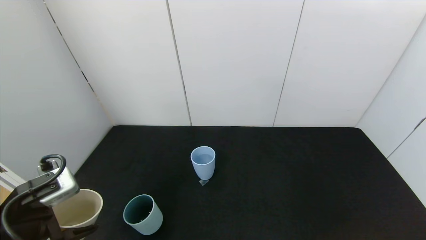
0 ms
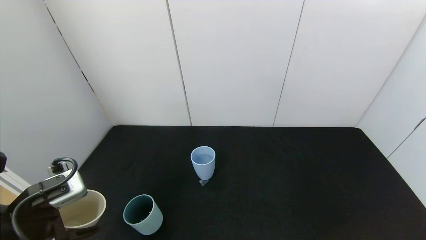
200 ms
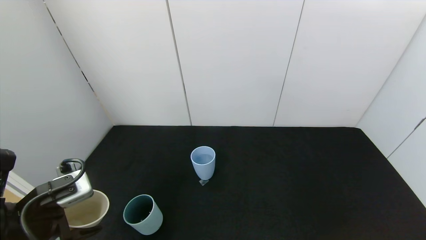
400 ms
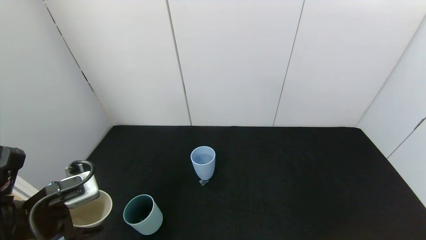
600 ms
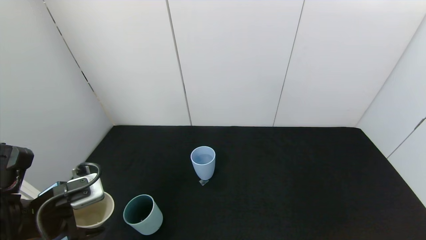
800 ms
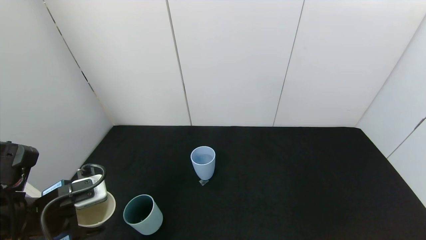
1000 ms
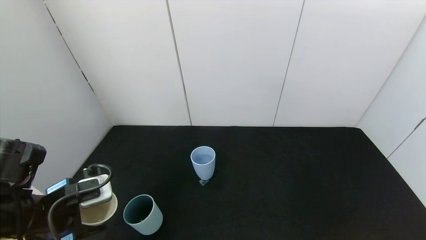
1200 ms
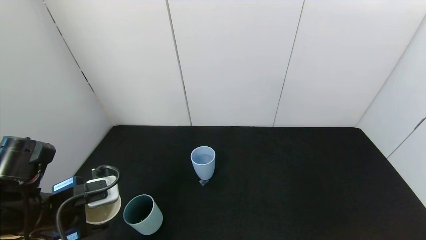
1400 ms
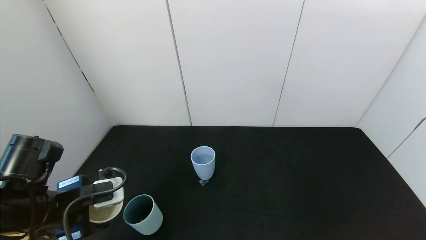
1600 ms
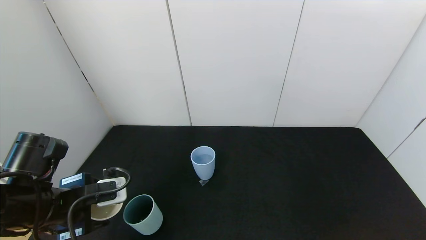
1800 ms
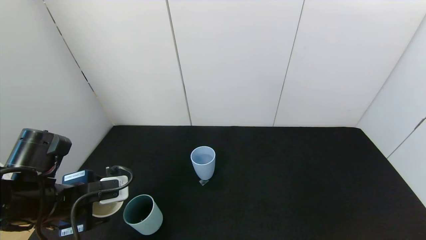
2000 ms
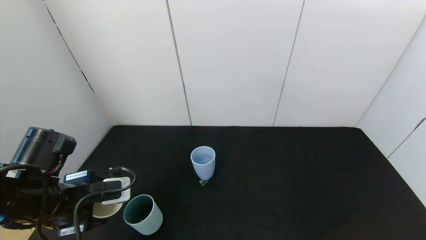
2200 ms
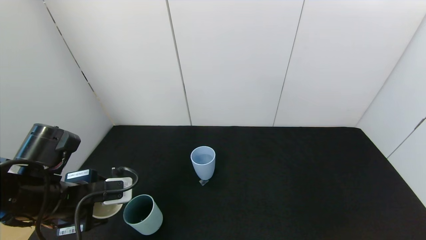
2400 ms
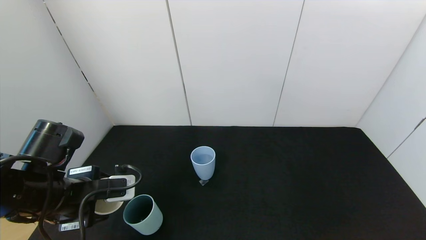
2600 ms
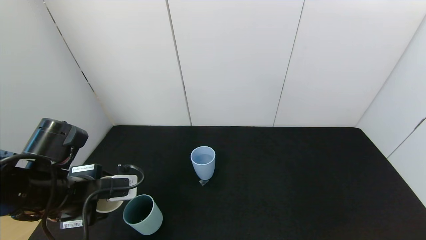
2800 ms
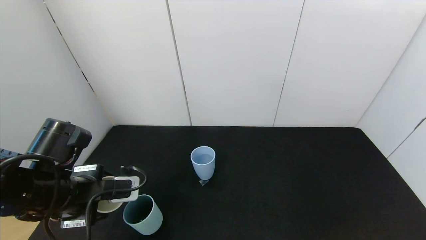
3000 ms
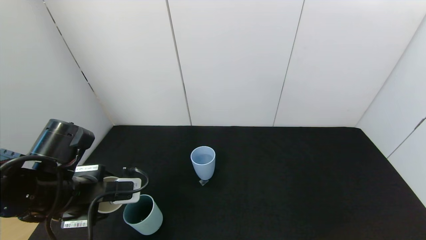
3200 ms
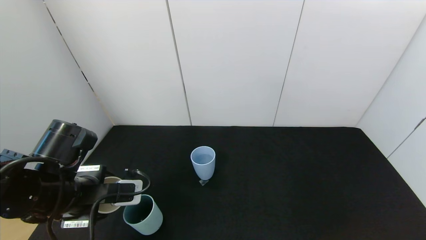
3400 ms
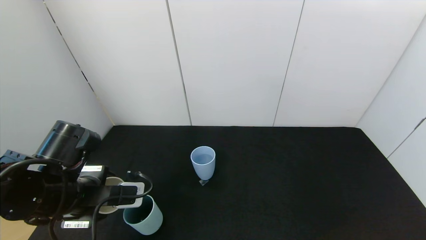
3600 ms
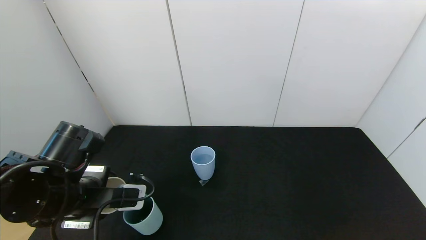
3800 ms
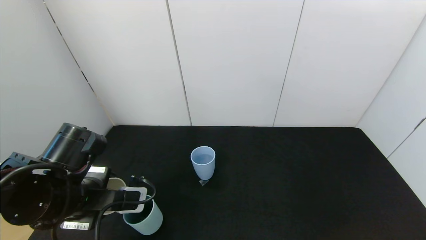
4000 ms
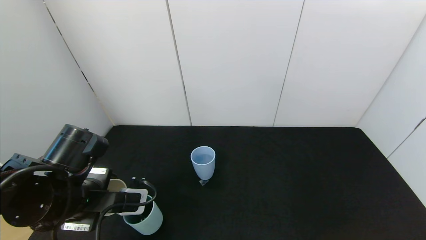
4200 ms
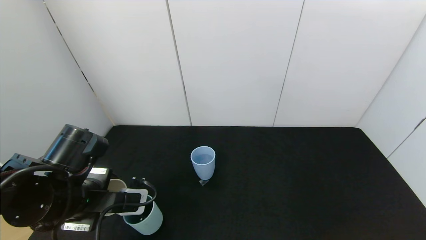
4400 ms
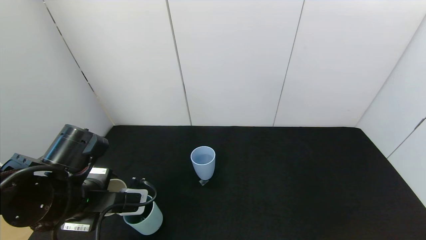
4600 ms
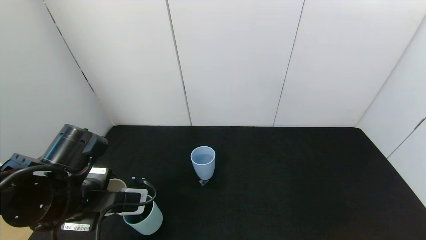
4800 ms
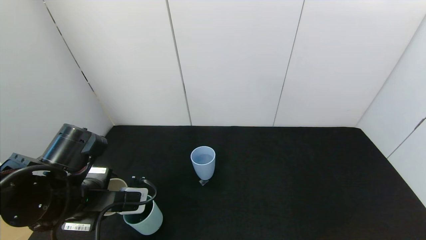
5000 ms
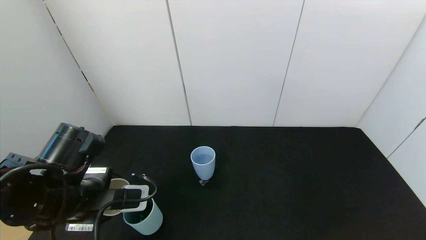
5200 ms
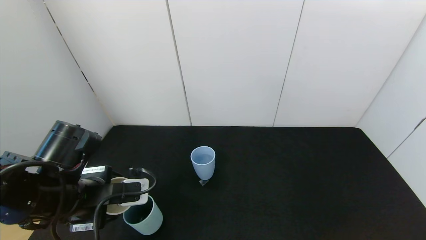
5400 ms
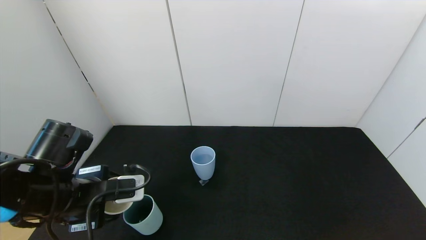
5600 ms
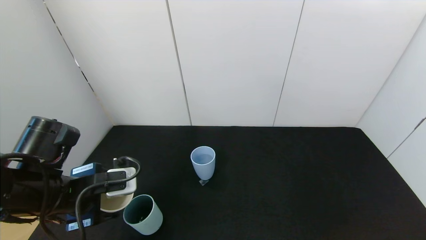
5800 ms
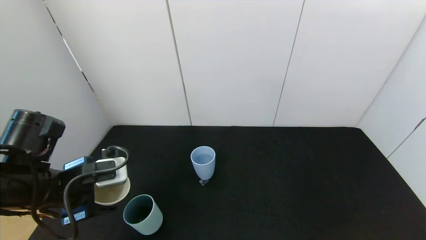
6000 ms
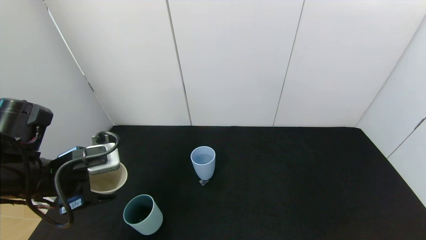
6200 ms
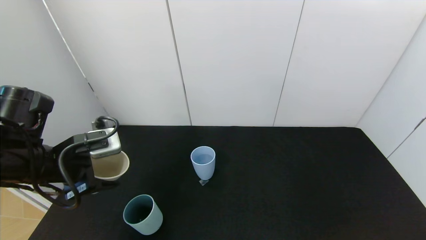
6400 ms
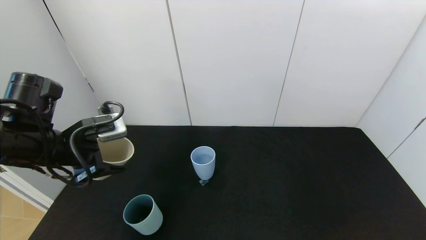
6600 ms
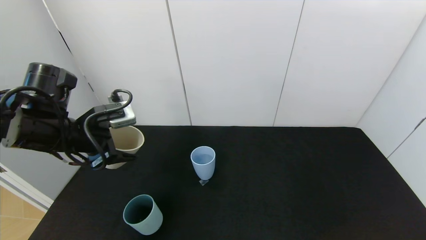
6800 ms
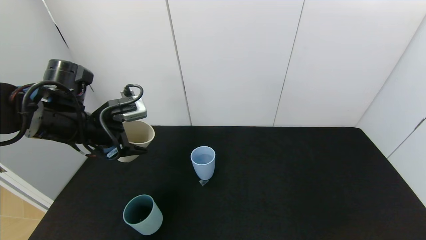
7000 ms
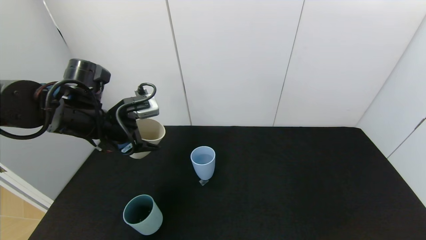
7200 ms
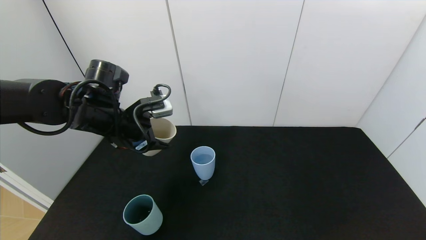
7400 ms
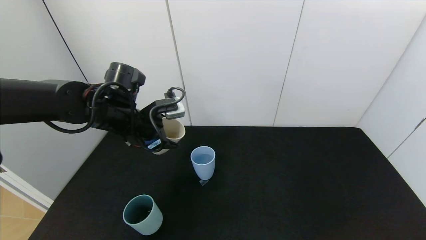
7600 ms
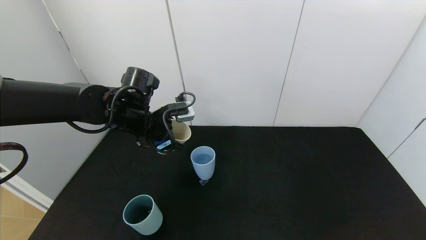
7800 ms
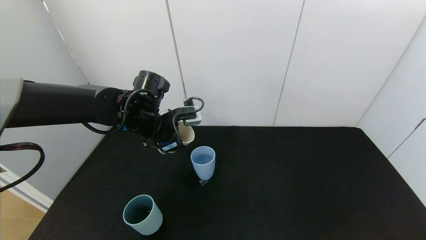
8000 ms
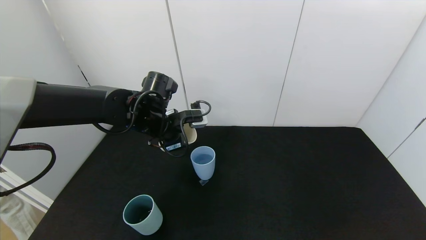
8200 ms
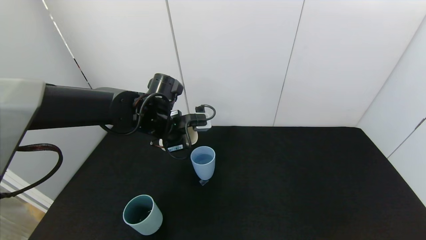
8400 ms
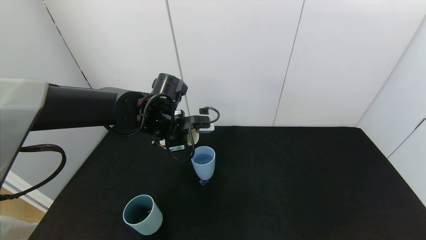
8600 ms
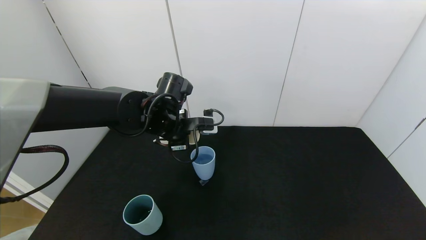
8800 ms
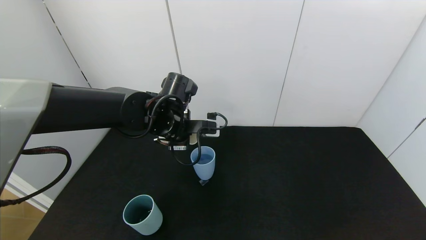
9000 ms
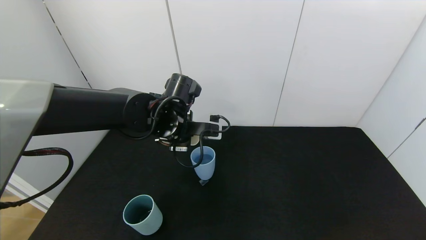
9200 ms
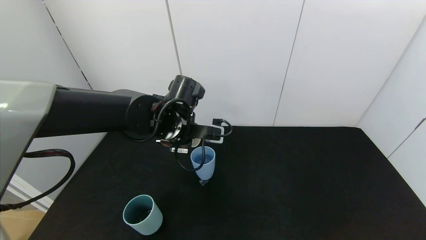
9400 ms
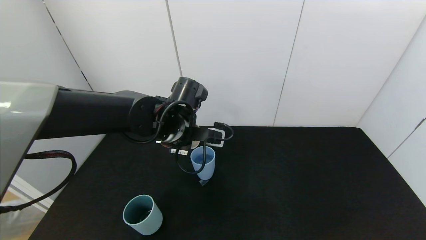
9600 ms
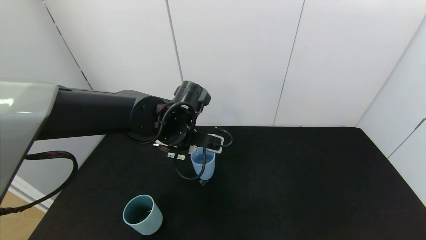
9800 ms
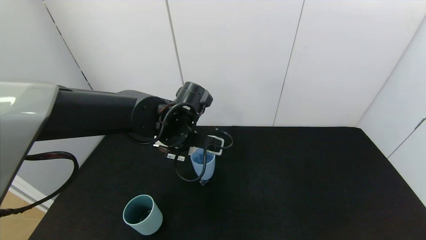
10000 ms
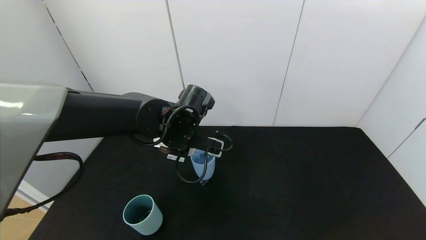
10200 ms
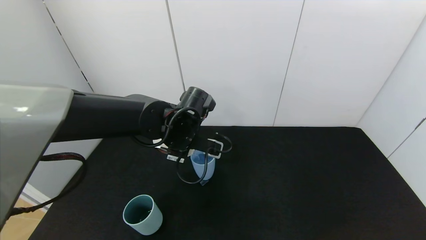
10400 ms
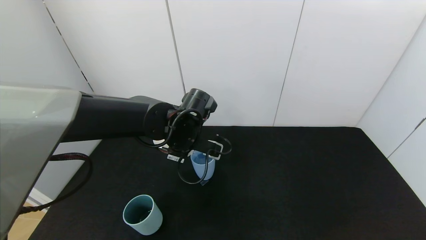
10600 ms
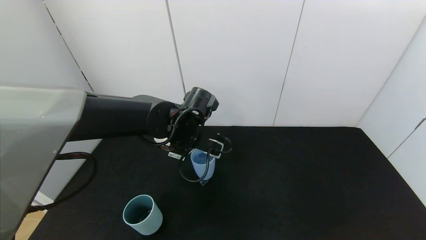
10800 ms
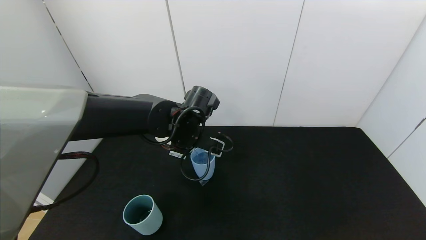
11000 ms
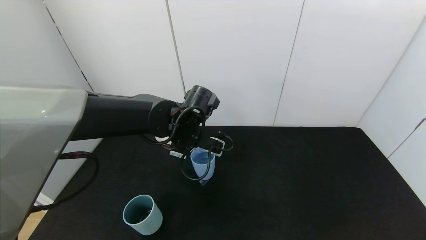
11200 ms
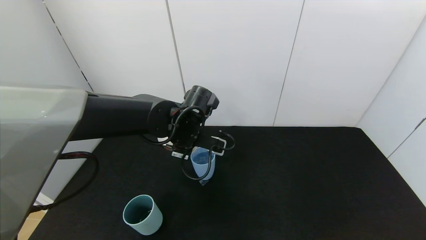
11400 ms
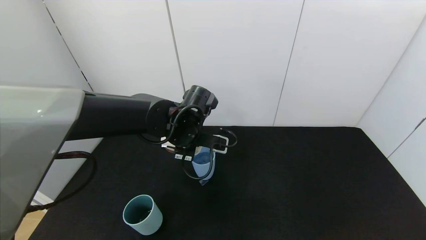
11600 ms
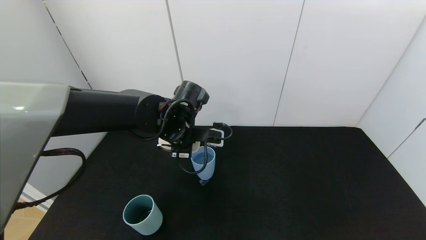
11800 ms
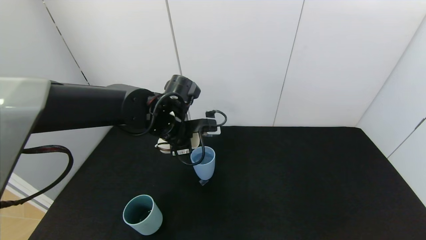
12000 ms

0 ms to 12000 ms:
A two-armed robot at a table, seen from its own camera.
Task of the whole recording: use the gripper to pour the water into the other two cups on black table.
Step, 0 ms to 6400 ms: Pour water into the green plastic cup with left gripper.
0 ms to 1600 ms: The left gripper shifts by about 5 cm.
1600 ms to 3000 ms: The grippers stay close to where they were, moving slightly.
3000 ms to 4400 ms: The grippers stay close to where they were, moving slightly.
6000 ms to 7600 ms: The left gripper goes roughly 15 cm forward and to the right.
7600 ms to 9000 ms: The left gripper is displaced to the right by some 10 cm.

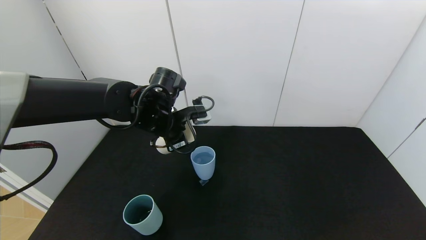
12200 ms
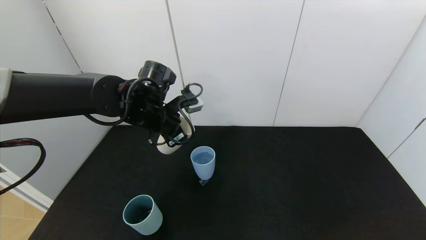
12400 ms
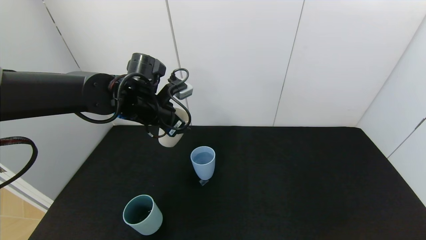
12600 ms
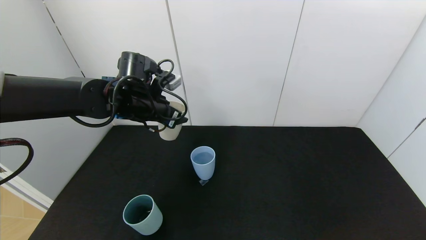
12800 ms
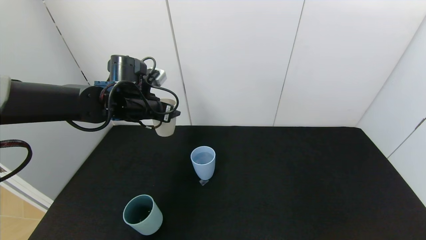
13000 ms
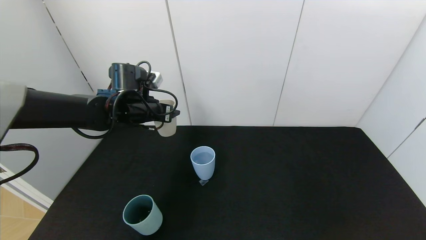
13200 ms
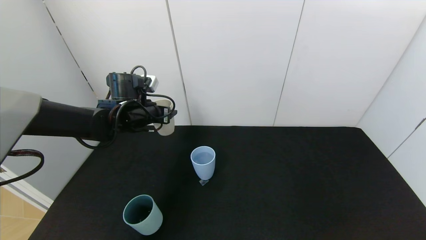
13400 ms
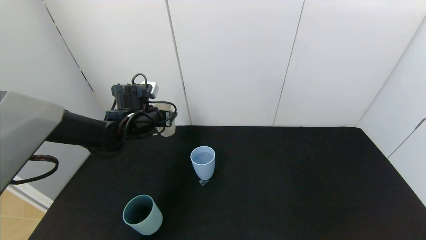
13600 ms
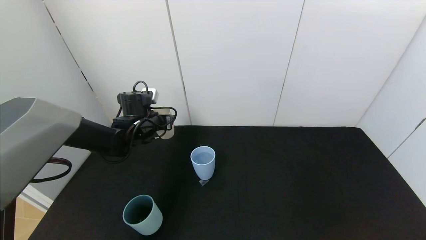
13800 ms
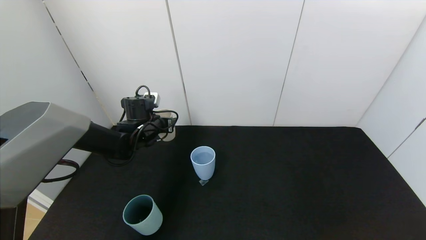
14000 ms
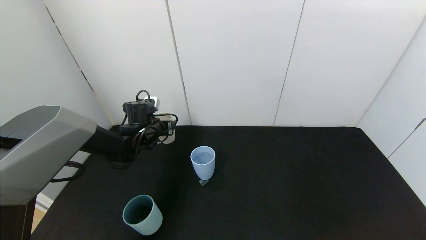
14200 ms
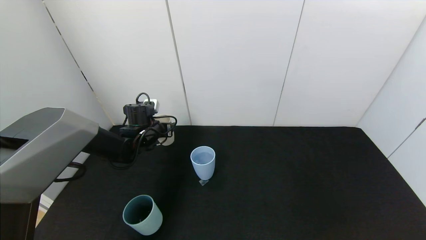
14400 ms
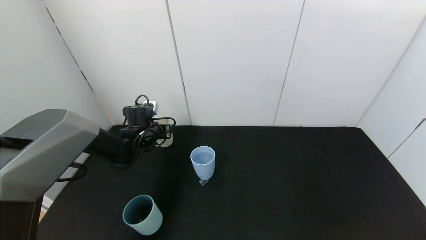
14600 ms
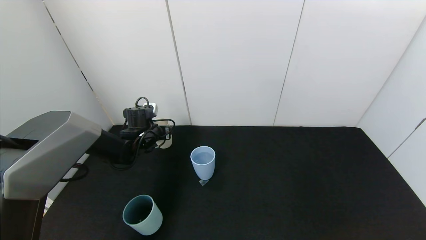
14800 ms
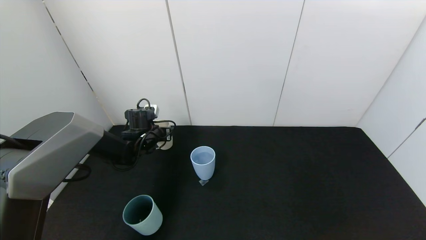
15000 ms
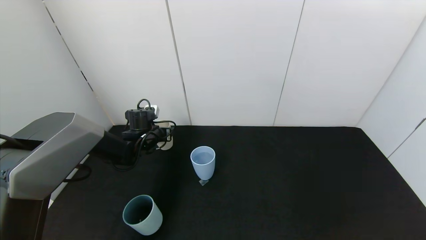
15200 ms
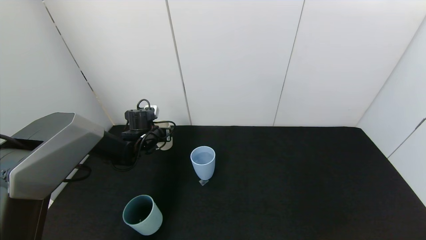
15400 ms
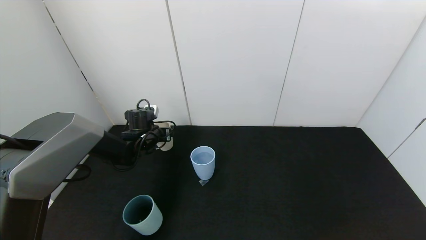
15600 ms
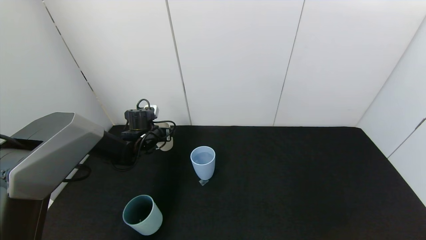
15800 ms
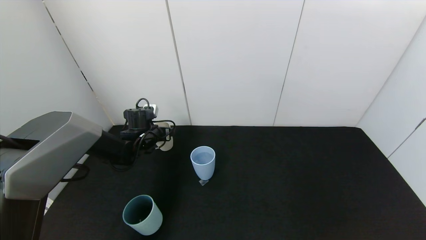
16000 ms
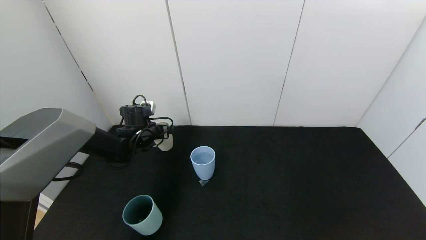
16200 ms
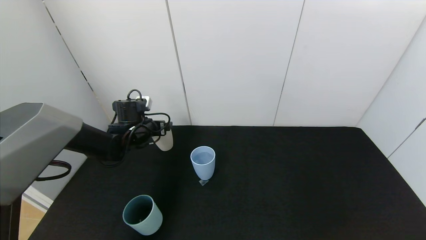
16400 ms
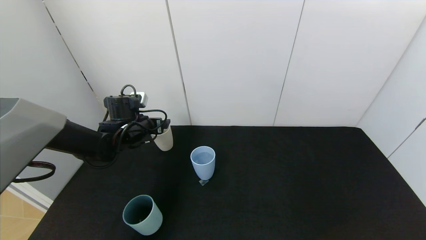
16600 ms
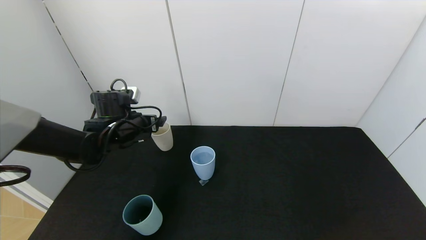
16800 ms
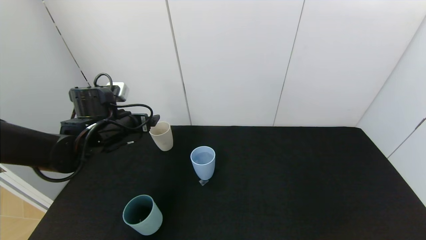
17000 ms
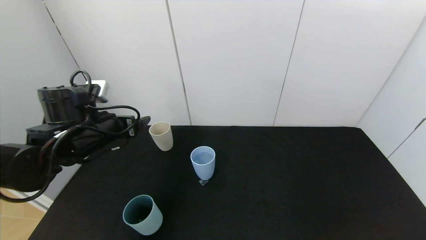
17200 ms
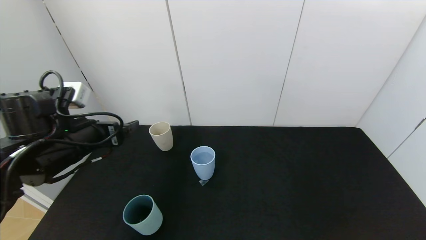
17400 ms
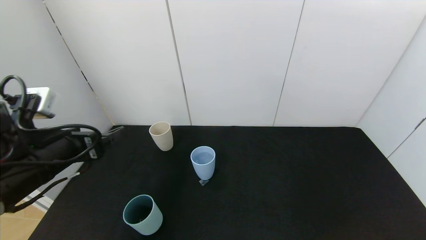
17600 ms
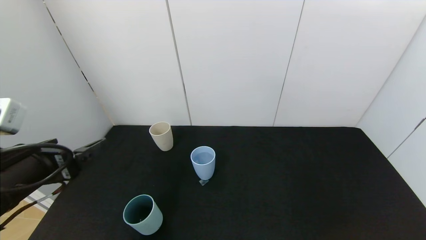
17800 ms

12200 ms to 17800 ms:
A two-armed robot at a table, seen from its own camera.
Task of the whole recording: use the gripper to pour the water into the other two cups on black table.
Step, 12400 ms to 16400 ms: Place the gray plastic cup on the table with left gripper.
12200 ms to 13600 ms: The left gripper travels to the left, forward and downward by about 10 cm.
13600 ms to 15000 ms: The left gripper heads downward, covering some 10 cm.
15000 ms to 16400 ms: The left gripper opens up.
16400 ms to 17800 ms: The left gripper is displaced backward by approximately 30 cm.
